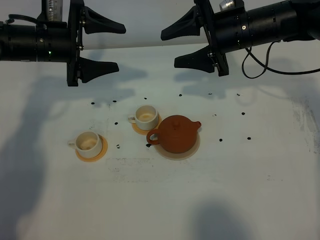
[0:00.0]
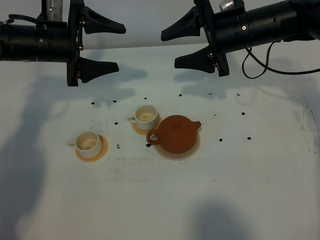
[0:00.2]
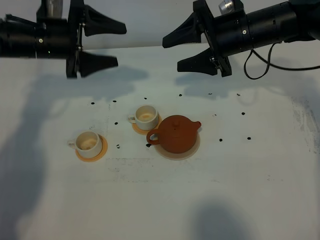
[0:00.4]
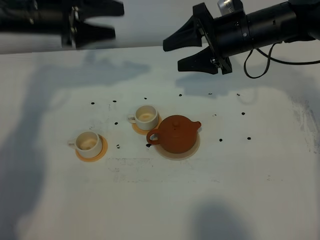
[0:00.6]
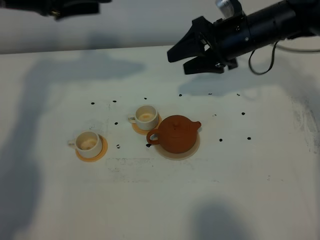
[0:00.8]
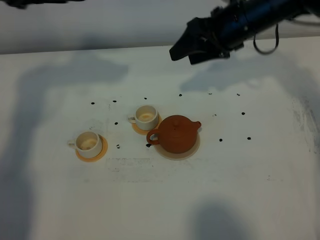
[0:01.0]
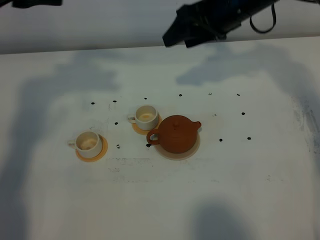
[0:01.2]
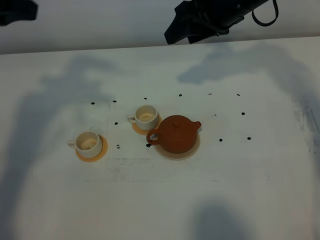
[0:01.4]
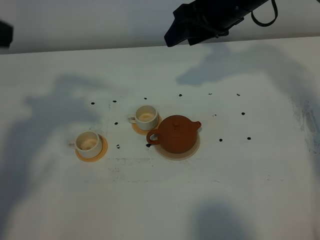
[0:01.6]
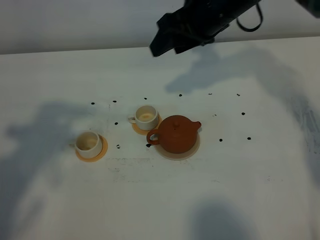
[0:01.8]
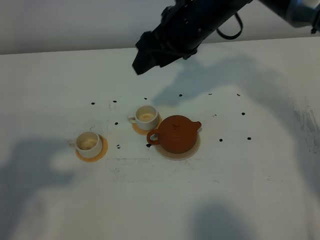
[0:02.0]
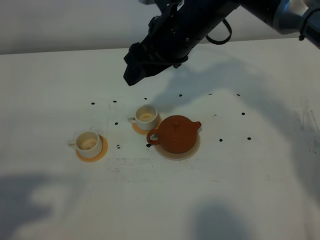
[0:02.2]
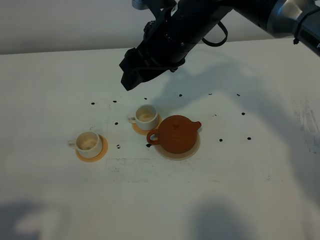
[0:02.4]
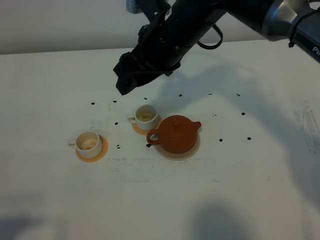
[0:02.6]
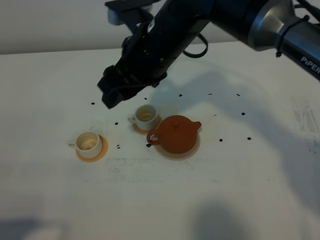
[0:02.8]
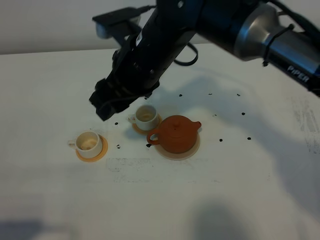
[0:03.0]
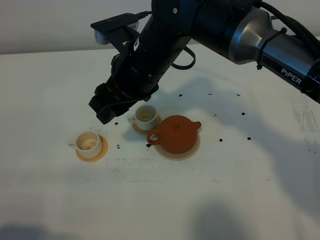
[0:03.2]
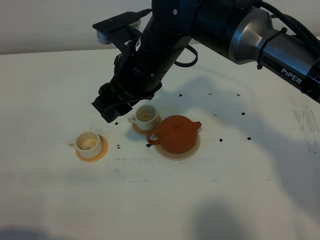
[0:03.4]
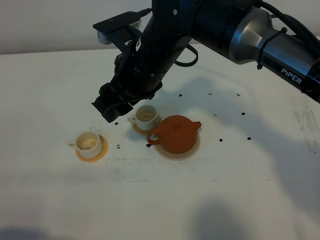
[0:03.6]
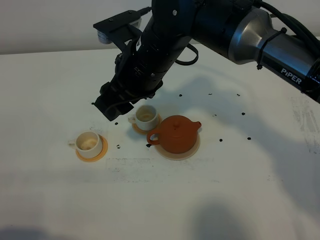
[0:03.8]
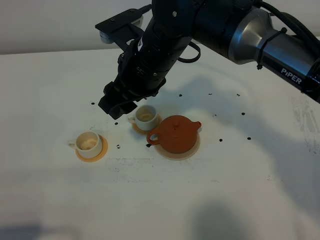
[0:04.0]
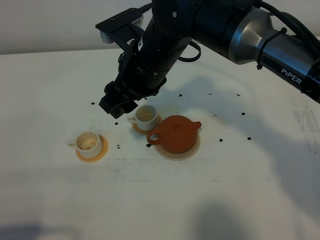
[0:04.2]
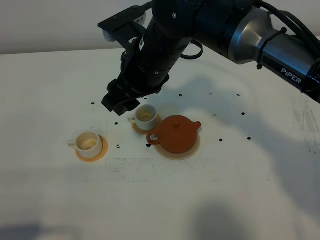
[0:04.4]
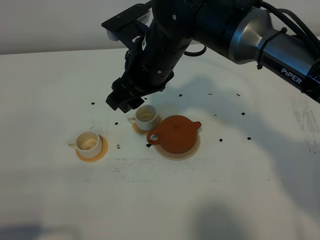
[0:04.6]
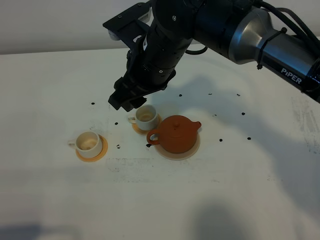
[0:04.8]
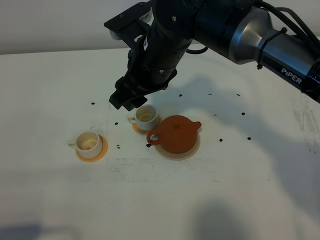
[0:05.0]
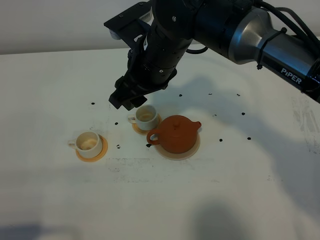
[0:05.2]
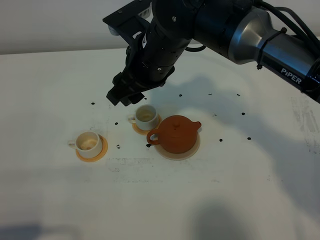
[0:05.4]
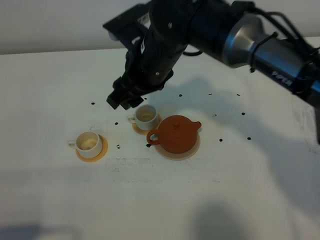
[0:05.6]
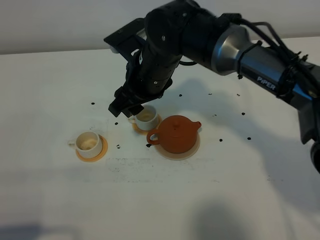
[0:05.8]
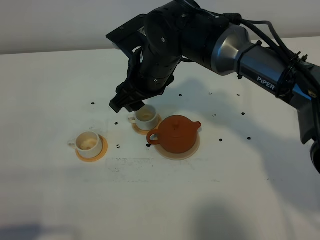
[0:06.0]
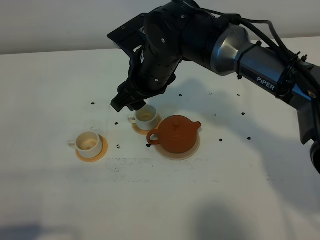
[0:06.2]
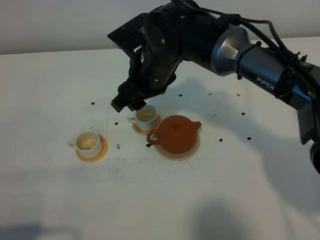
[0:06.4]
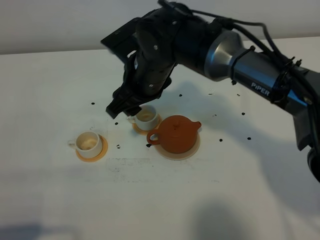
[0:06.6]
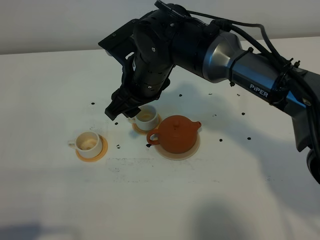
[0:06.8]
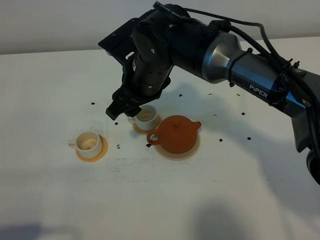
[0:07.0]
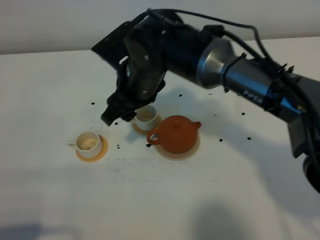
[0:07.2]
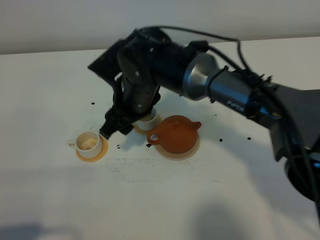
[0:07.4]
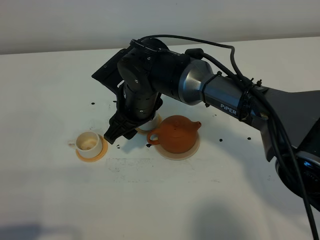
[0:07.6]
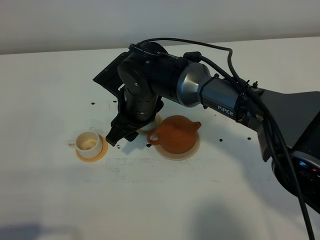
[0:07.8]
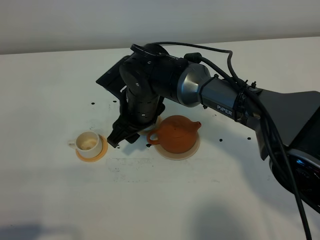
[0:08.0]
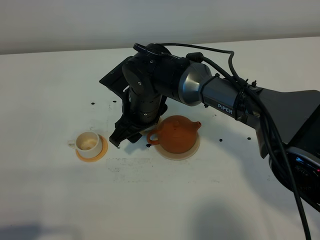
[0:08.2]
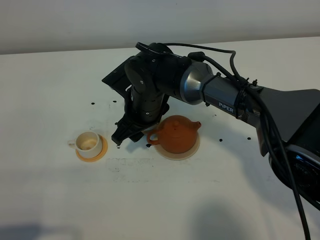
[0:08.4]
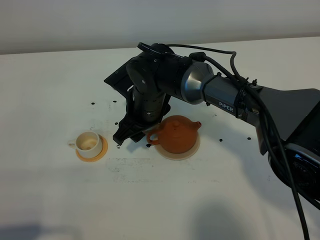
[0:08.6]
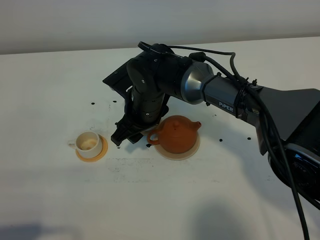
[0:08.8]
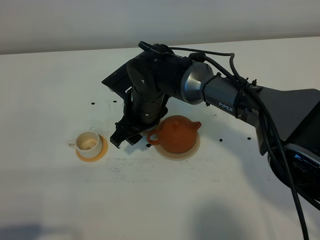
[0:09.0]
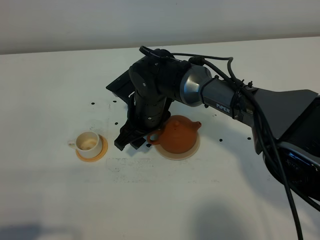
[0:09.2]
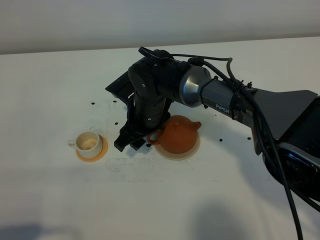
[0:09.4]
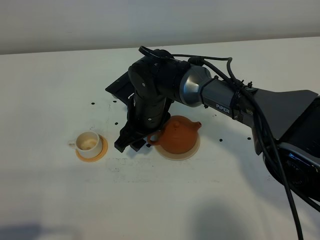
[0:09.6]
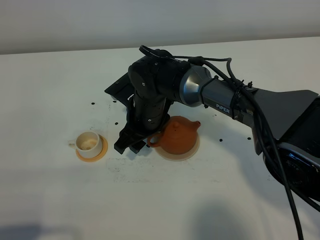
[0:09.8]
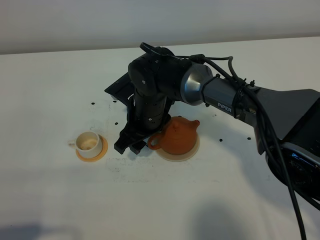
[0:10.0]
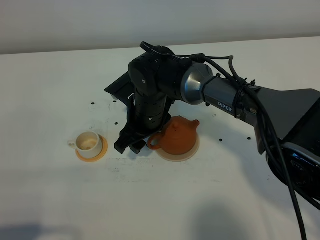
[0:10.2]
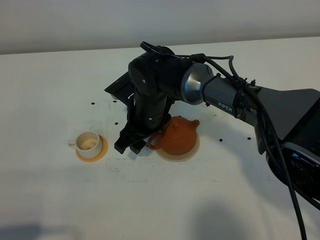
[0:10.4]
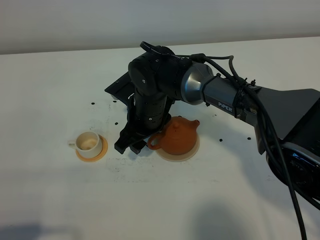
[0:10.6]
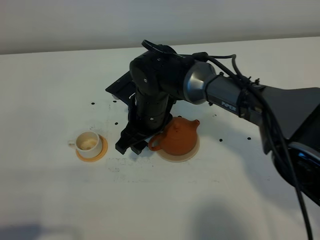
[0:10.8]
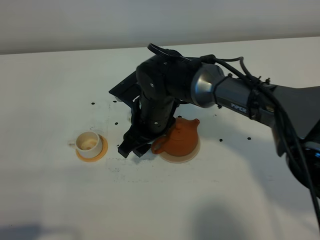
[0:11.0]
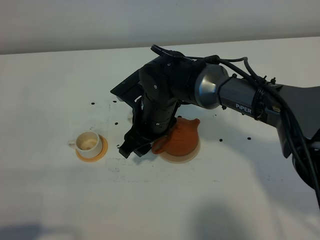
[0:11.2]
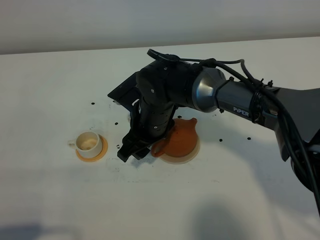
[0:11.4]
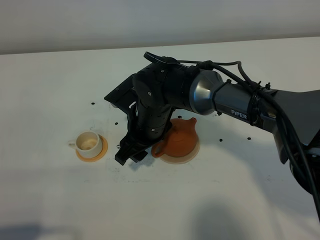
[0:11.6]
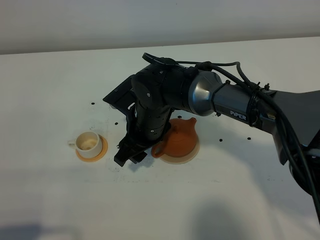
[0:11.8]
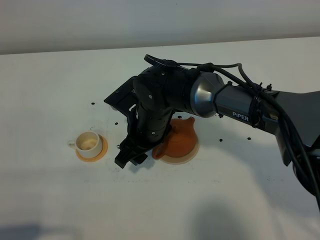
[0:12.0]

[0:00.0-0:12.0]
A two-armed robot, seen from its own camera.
Task of the whole recording: grasp the brown teapot and pour the tea into the two white teacups one by one, put the brown teapot back in its original place.
0:00.0 to 0:01.6: The right gripper moves upward, approximately 5 cm; the left gripper goes some 25 cm upward and backward, and closes up.
0:01.6 to 0:03.0: The right gripper moves to the left and backward, roughly 15 cm; the left gripper travels backward and downward by about 25 cm, and closes.
0:03.0 to 0:04.4: The grippers make only small movements.
0:04.4 to 0:06.0: The grippers move only a little.
0:06.0 to 0:07.6: The right gripper is displaced downward by approximately 5 cm.
0:07.6 to 0:12.0: The grippers stay close to where they were, moving slightly.

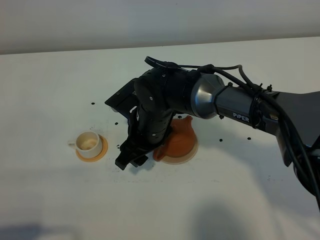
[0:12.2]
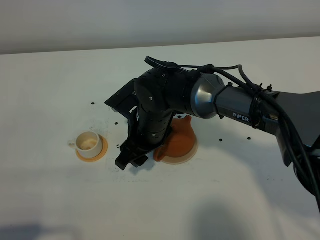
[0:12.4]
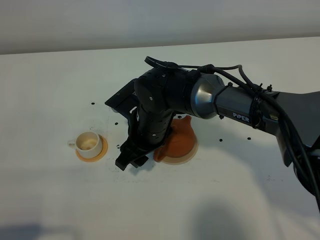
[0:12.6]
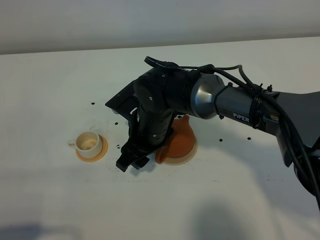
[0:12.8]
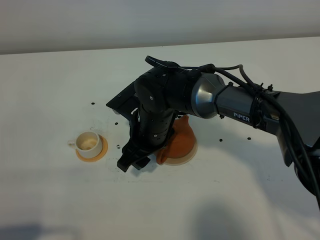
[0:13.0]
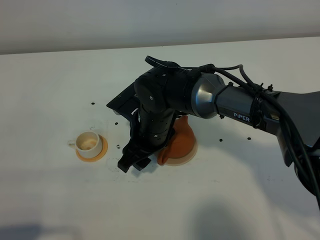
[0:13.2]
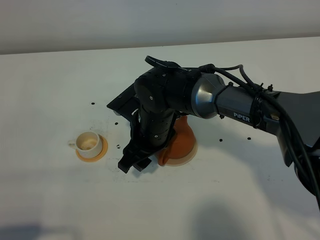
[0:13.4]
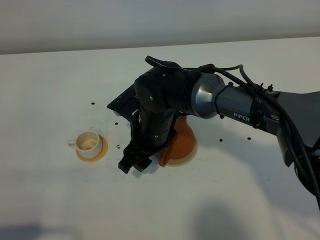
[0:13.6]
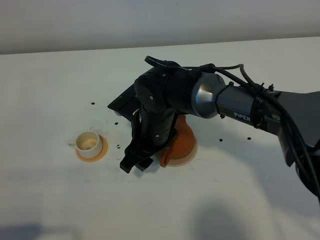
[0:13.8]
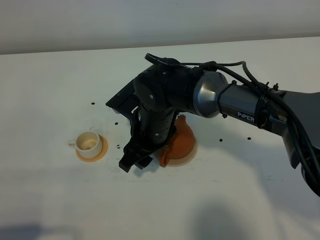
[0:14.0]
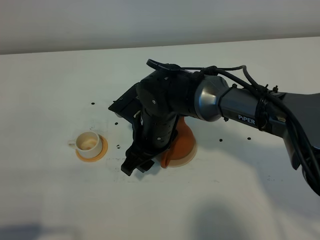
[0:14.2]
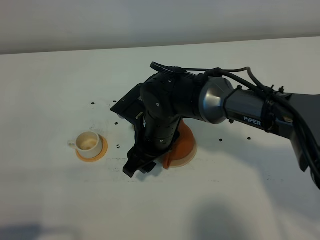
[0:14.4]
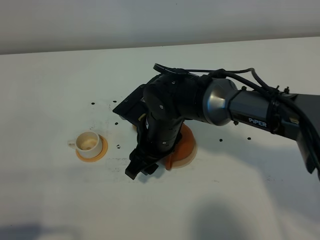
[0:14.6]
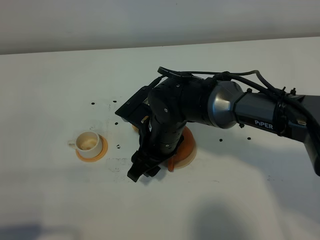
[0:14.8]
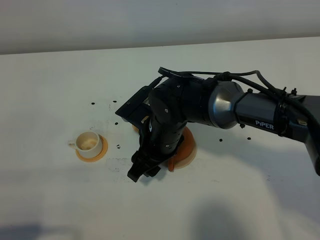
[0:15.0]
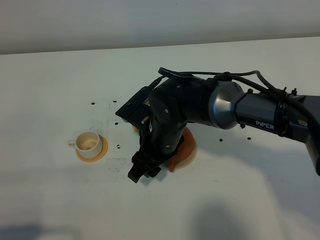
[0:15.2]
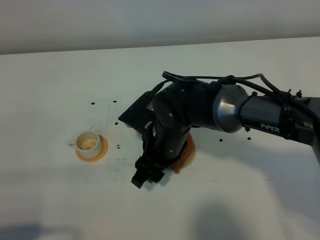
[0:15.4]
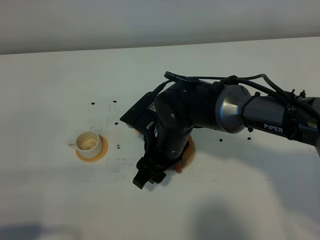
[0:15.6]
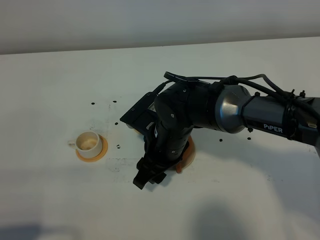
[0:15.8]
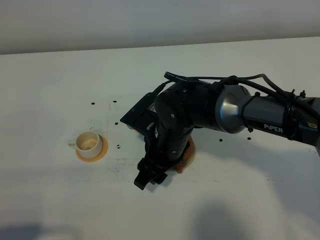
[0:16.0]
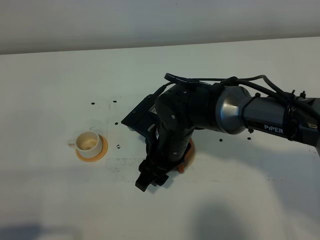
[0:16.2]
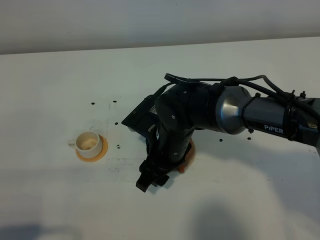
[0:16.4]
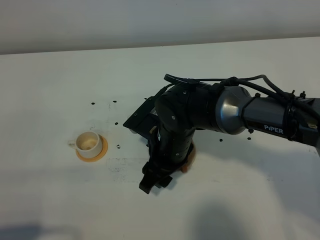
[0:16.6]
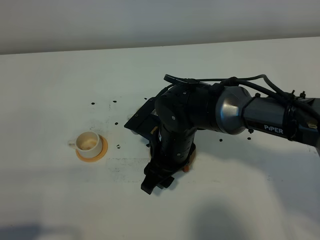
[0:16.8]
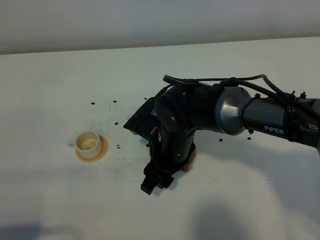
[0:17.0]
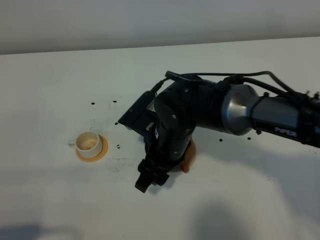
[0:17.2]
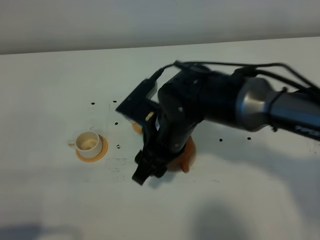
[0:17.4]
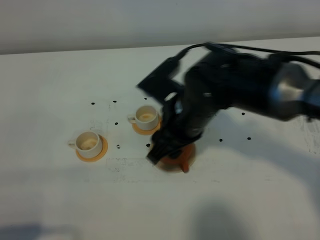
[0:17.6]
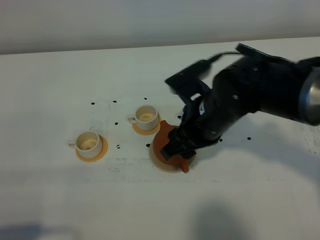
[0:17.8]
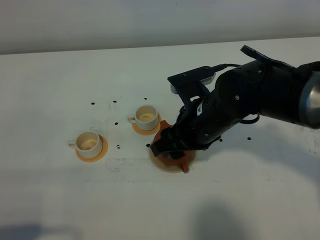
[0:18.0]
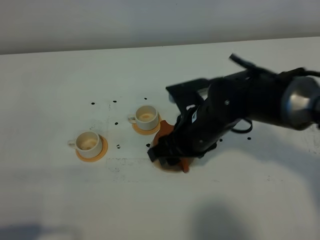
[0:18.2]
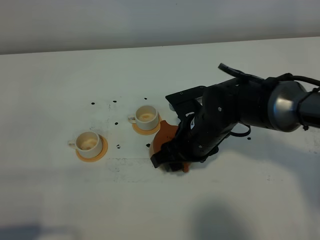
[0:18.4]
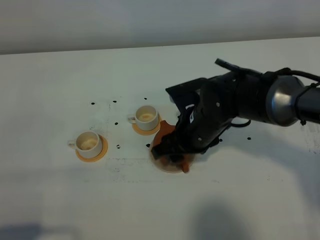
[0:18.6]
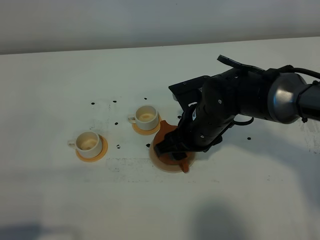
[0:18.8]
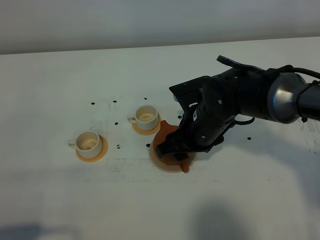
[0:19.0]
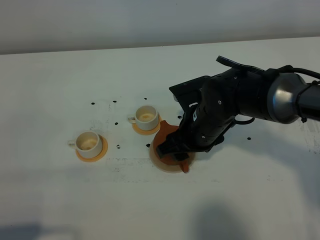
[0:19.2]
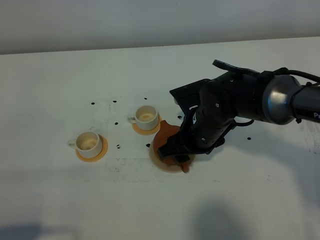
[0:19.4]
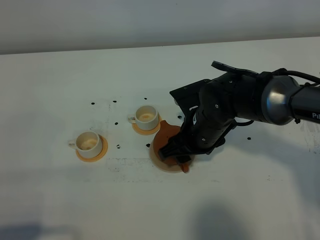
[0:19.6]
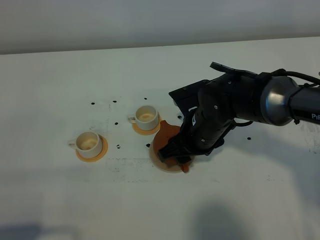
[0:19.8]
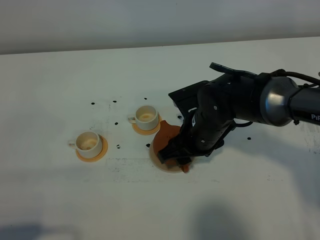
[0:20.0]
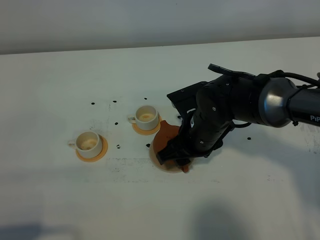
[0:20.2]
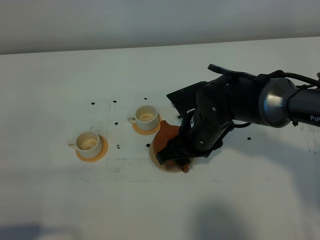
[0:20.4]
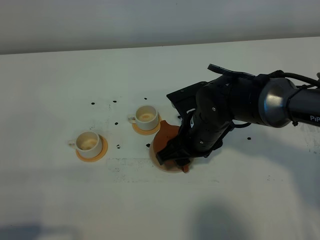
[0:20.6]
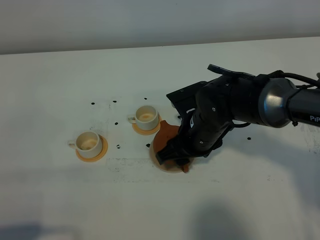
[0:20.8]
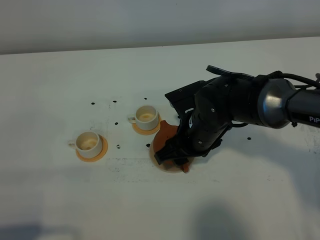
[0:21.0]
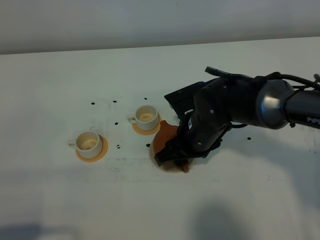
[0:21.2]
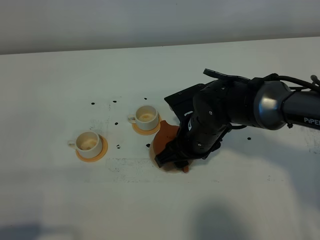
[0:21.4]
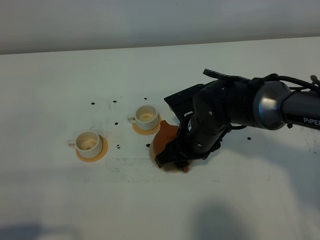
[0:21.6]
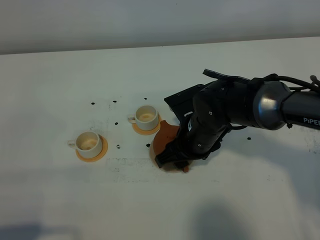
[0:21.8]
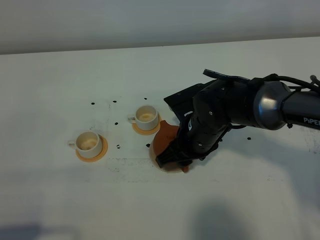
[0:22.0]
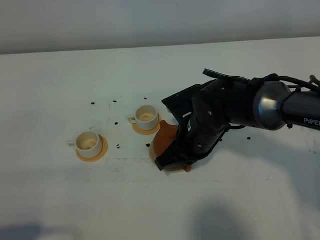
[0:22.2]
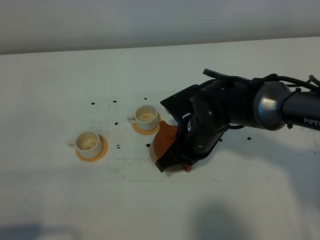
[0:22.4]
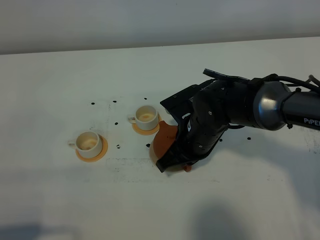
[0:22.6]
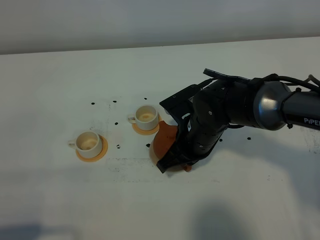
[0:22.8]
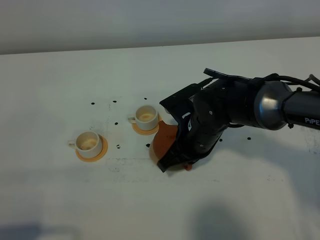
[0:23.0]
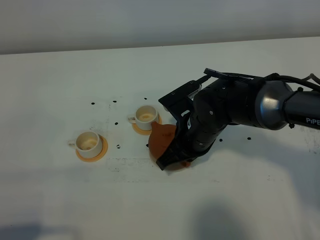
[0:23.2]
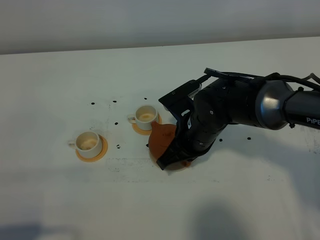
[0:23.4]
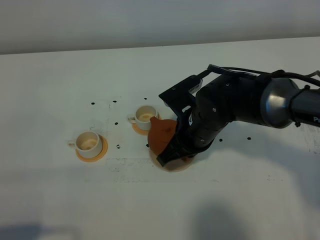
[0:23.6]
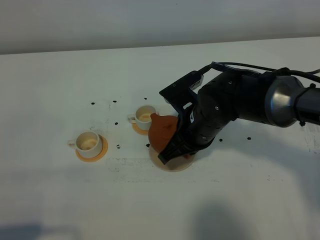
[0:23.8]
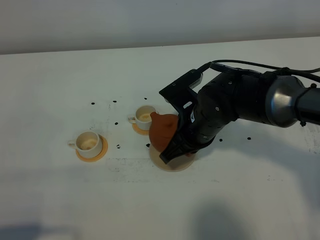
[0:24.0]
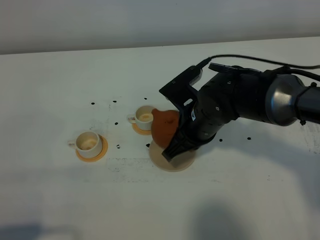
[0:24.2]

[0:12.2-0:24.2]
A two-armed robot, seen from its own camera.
Task of the whole recording: grasp the brown teapot and pour the tea into the two white teacups one by one, put the brown teapot back in its original place.
Step, 0:12.2 to 0:24.2: Pick up the teapot with the right gripper.
0:12.2 to 0:13.8: Neither gripper changes place.
0:13.8 to 0:16.6: The grippers move only a little.
0:18.2 to 0:19.8: There are only small adjustments of the grippers.
0:19.8 to 0:21.2: The two grippers keep their place.
0:21.2 to 0:22.6: The right gripper closes up.
0:22.6 to 0:24.2: The grippers make only small movements.
